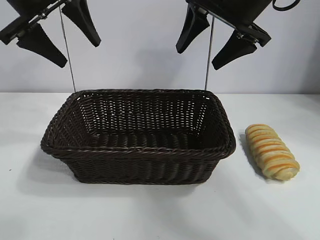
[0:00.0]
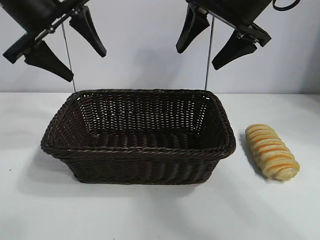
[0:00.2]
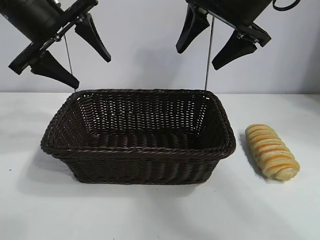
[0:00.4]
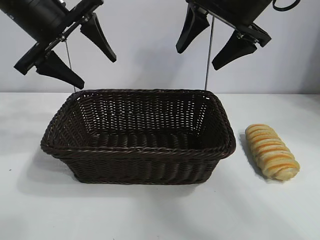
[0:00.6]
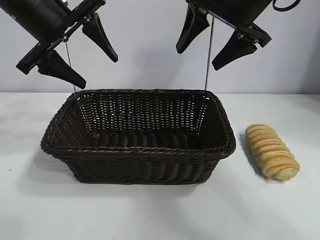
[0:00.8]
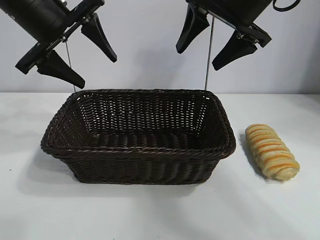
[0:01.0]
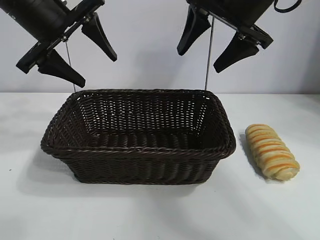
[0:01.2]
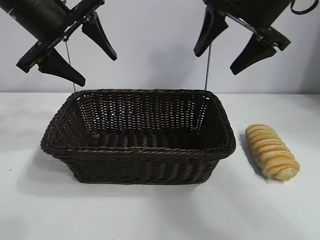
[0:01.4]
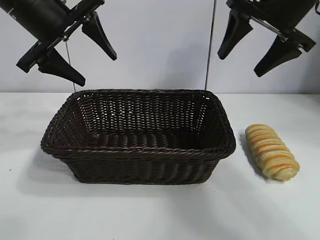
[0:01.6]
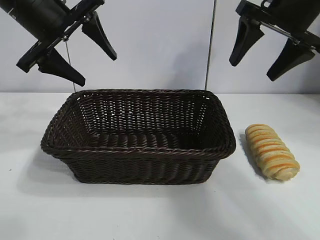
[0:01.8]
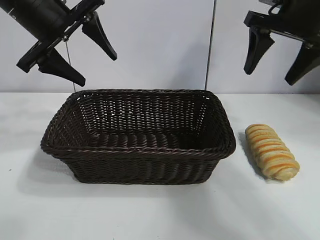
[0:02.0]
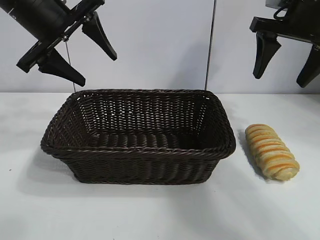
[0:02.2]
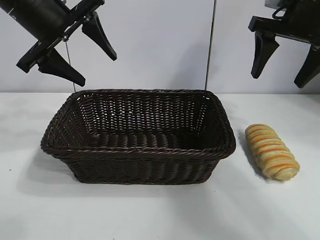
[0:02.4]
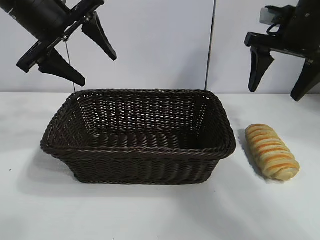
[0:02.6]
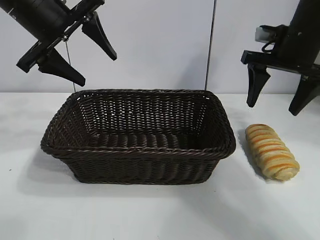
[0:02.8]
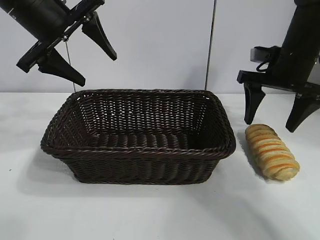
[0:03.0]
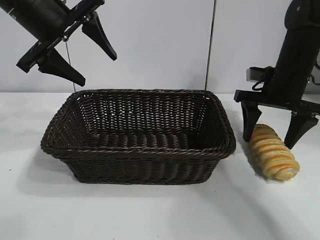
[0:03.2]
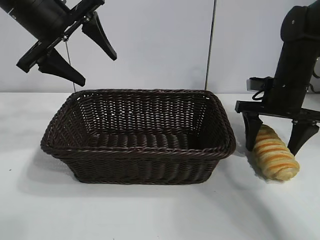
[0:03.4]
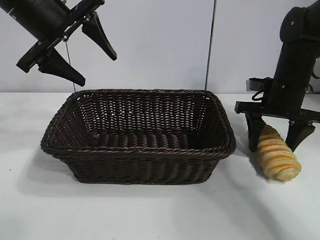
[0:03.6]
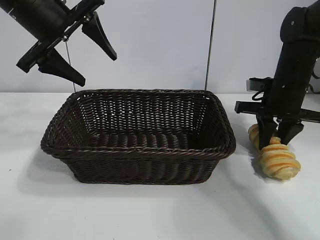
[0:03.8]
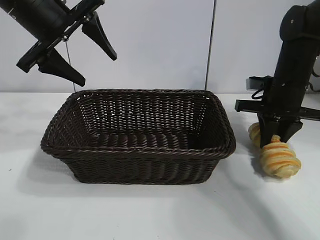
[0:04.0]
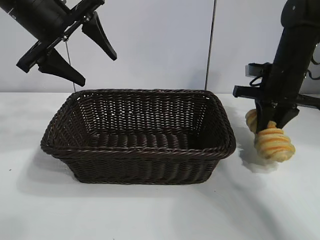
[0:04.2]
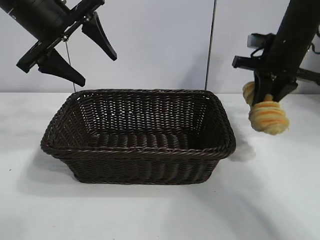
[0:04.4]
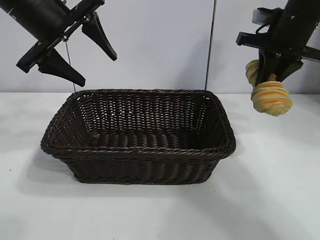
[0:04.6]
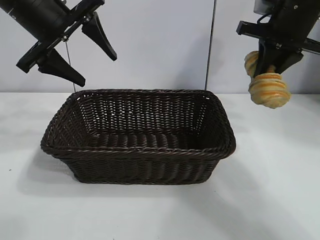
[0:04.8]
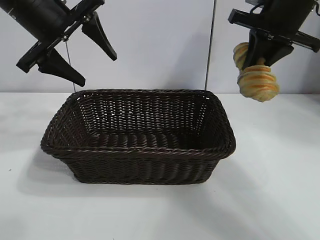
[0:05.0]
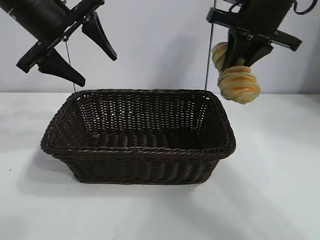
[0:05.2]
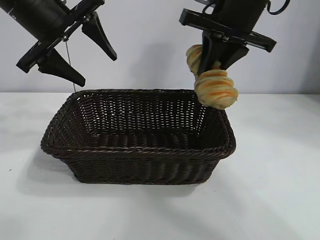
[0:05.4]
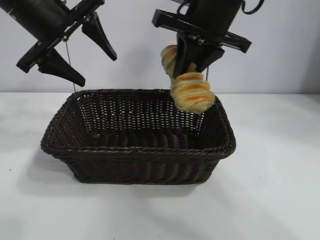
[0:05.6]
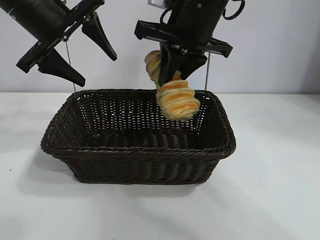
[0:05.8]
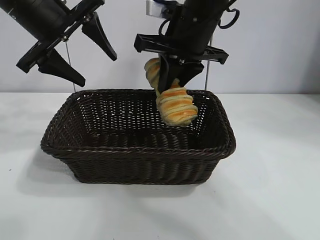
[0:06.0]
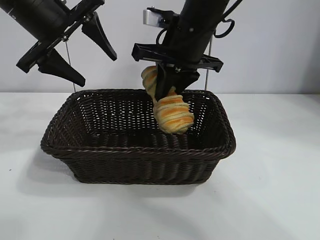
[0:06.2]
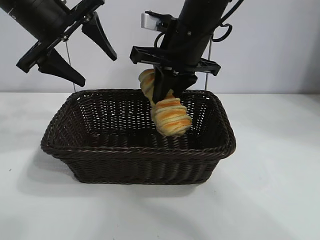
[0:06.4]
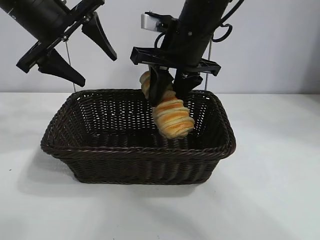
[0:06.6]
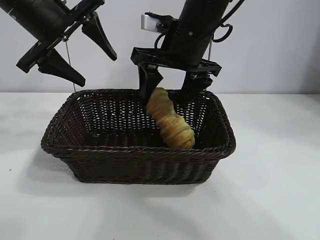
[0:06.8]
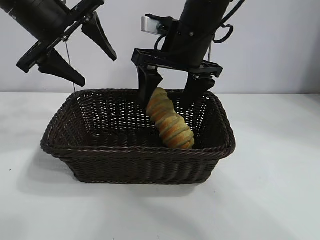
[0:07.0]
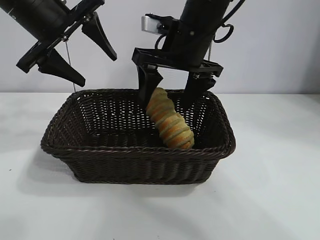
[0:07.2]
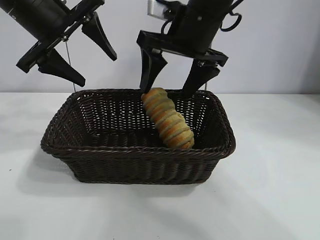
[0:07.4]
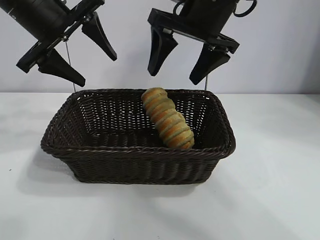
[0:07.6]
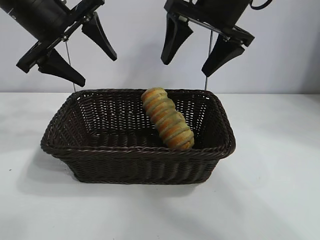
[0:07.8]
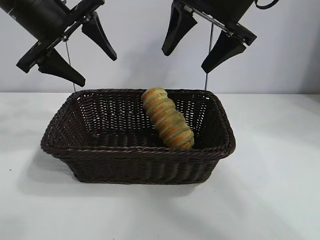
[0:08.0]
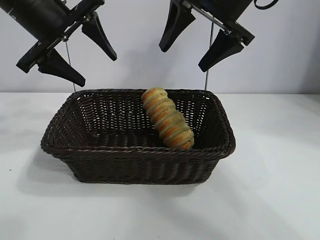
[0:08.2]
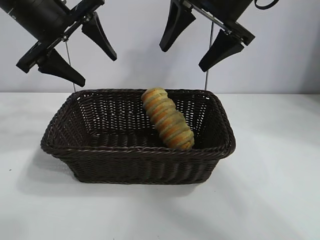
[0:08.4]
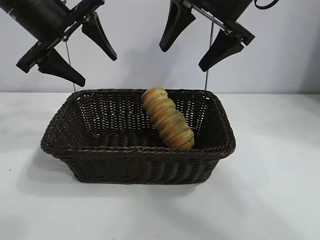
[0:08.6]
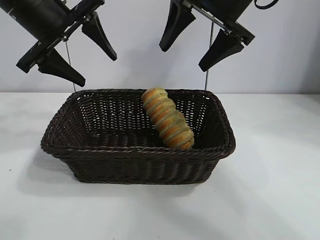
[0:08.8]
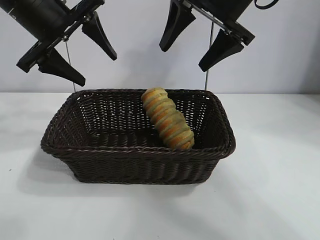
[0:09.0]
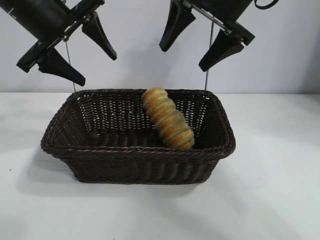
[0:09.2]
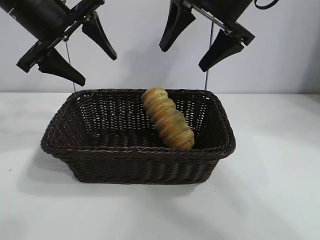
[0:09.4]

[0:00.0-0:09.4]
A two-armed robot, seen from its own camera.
Task of the whole recording: pick up the long bread and put it into the basket.
Step, 0:00.0 to 0:03.8: Grasp the long bread with right gripper.
Step, 0:04.0 to 0:07.4: Place the long bread in the basket with right gripper.
